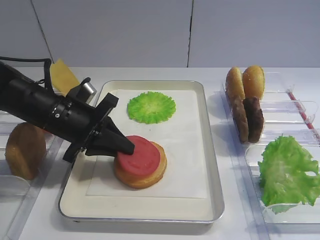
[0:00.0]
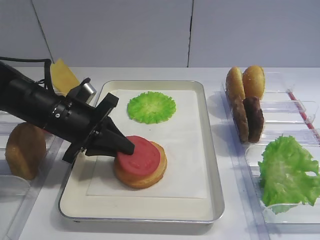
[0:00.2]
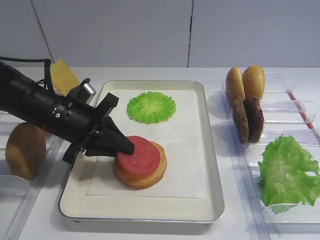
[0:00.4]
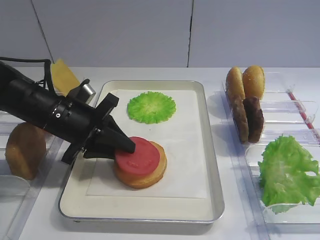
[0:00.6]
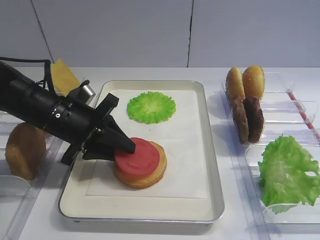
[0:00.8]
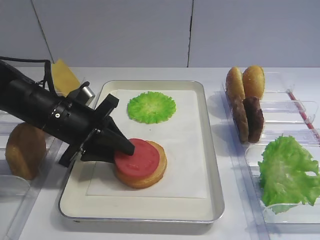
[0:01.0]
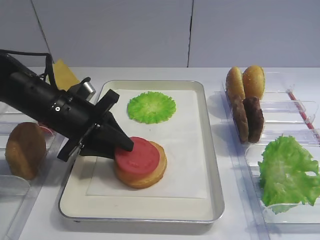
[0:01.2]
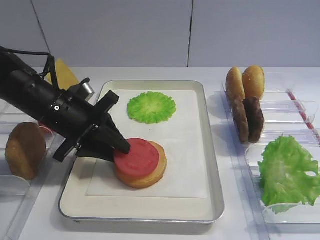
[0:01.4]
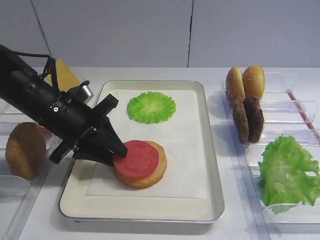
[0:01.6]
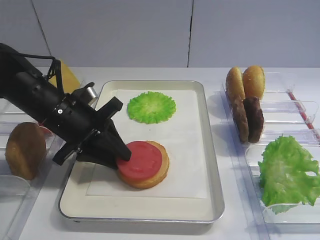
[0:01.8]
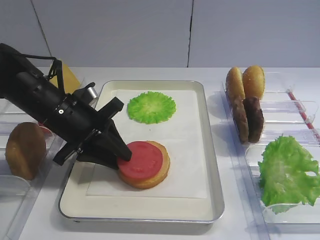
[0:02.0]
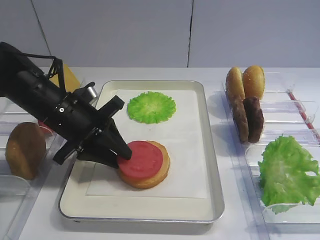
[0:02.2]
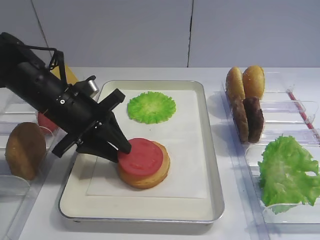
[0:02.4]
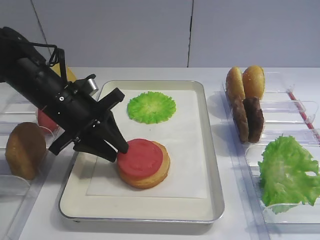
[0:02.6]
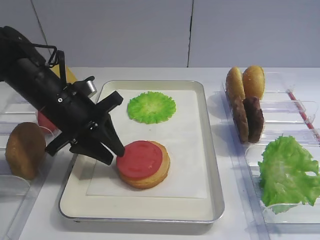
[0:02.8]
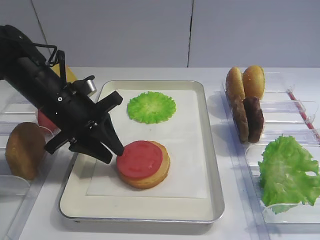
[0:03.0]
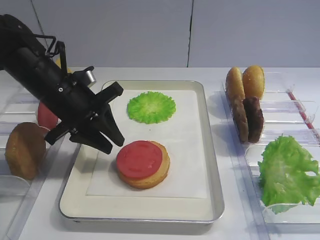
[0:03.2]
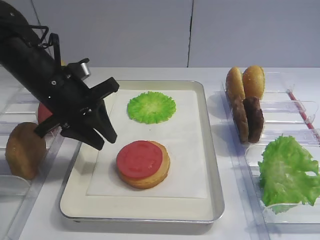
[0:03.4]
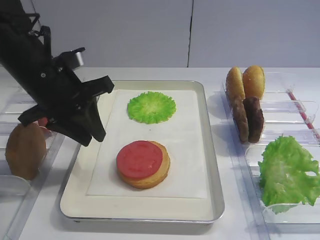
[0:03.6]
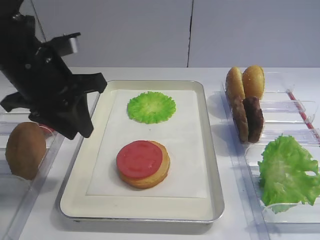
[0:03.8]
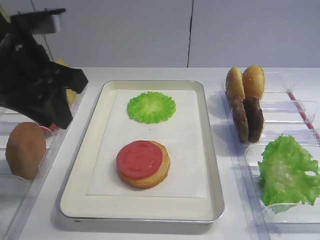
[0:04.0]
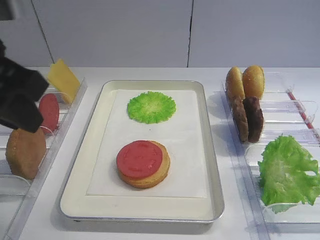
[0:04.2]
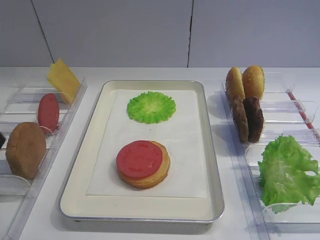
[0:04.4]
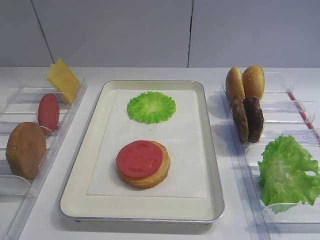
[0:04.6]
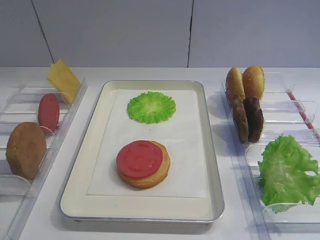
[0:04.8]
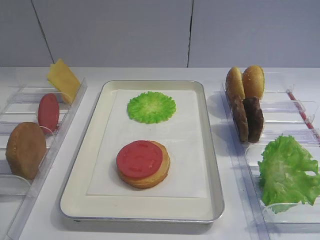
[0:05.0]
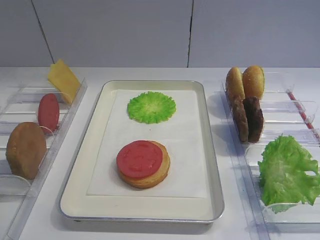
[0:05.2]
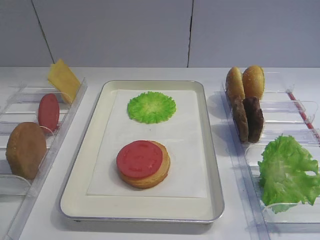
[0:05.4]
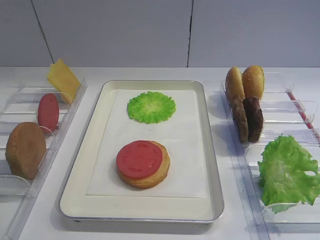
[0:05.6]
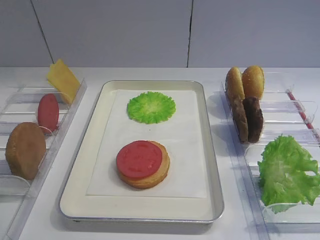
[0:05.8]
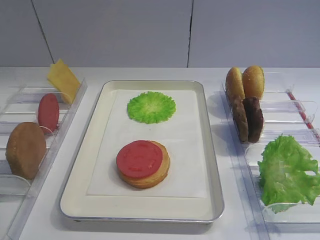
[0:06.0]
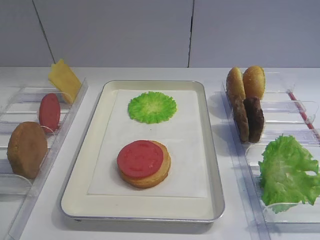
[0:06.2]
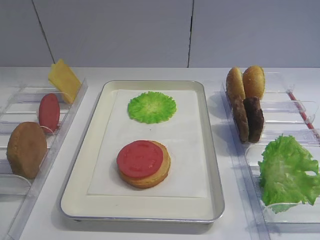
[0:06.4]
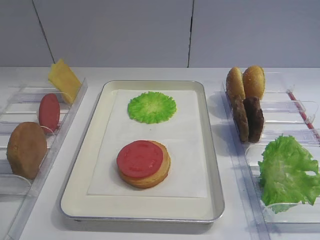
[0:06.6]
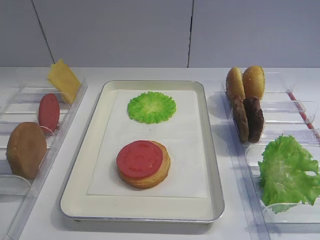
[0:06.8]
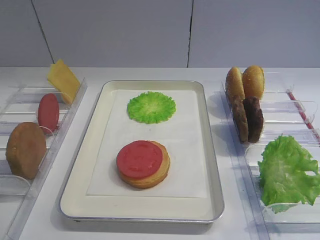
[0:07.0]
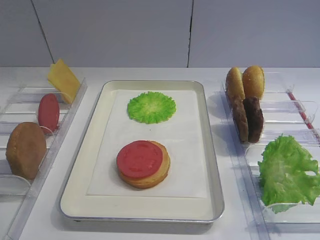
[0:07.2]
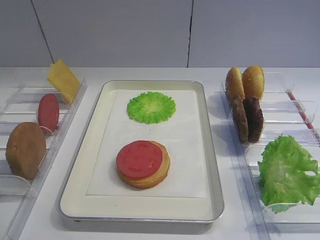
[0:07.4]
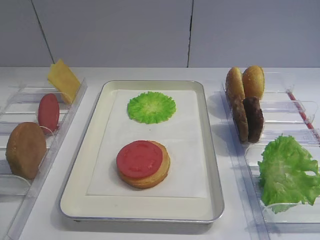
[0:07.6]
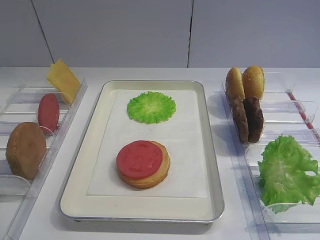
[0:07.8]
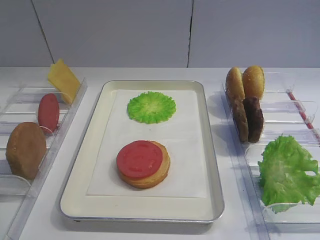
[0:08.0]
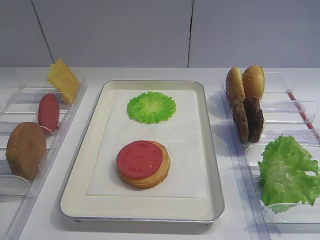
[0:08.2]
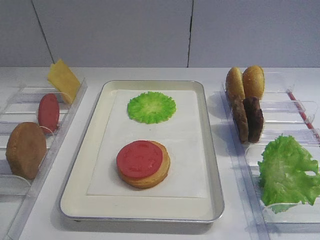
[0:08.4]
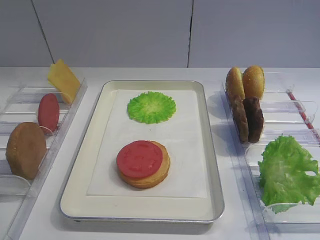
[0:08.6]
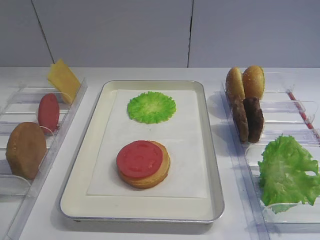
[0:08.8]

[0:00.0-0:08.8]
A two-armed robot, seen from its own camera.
Step, 0:00.0 to 0:02.8: Place the tomato slice on the bread slice with the left gripper.
0:00.0 to 0:01.4: The left gripper opens up.
0:01.4 to 0:03.0: The grippers stay close to where they were, moving slightly.
0:03.0 to 0:04.4: The left gripper moves backward and upward, about 25 cm.
0:07.4 to 0:08.8: Both grippers stay about where they are.

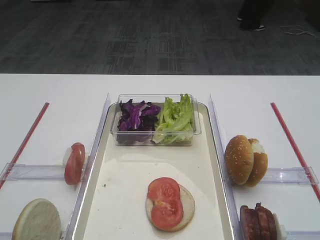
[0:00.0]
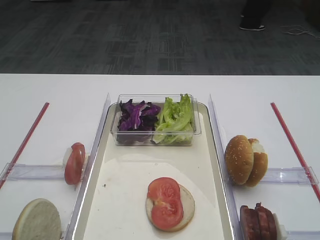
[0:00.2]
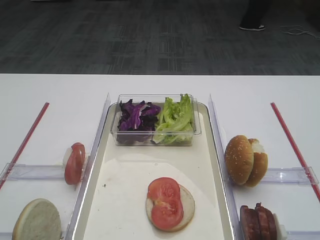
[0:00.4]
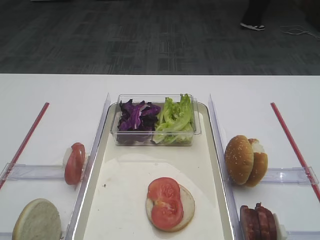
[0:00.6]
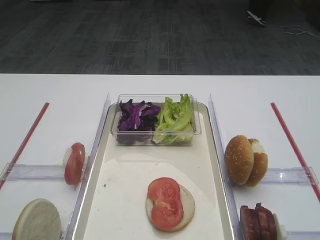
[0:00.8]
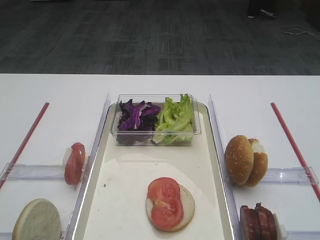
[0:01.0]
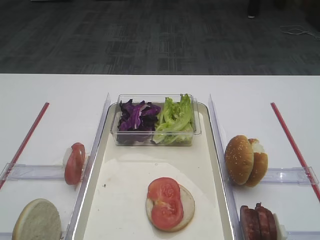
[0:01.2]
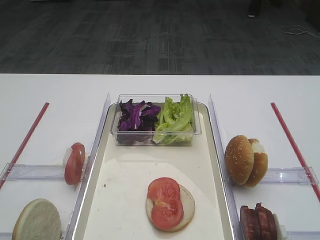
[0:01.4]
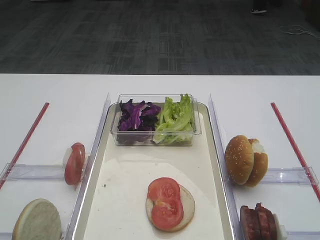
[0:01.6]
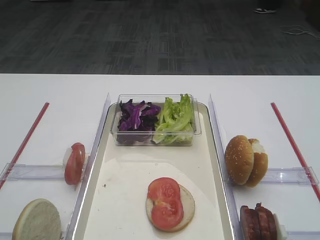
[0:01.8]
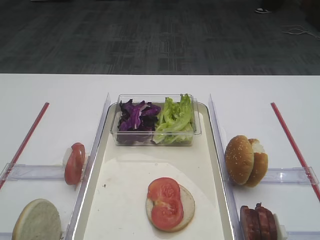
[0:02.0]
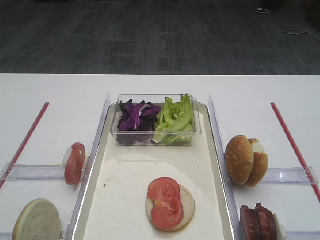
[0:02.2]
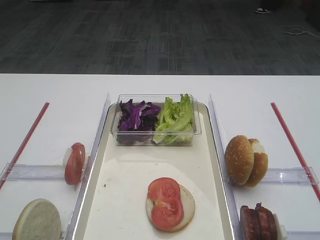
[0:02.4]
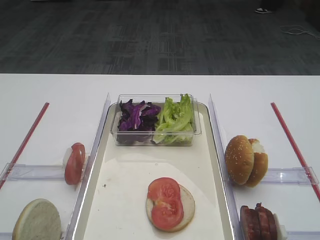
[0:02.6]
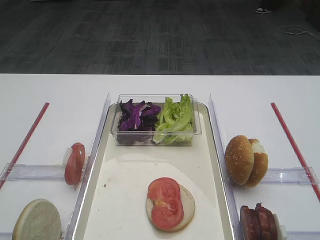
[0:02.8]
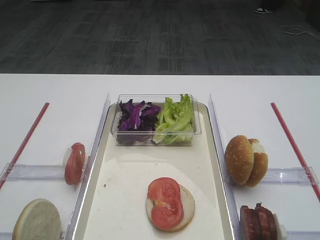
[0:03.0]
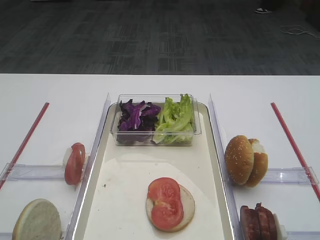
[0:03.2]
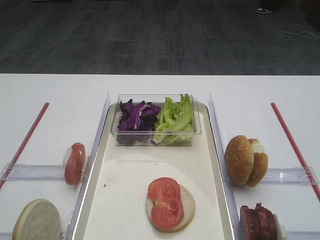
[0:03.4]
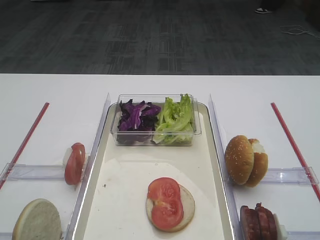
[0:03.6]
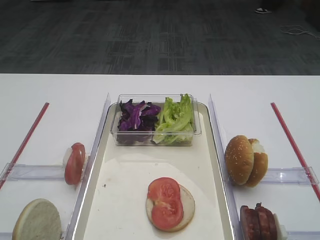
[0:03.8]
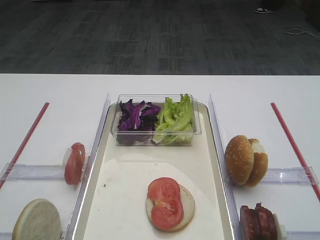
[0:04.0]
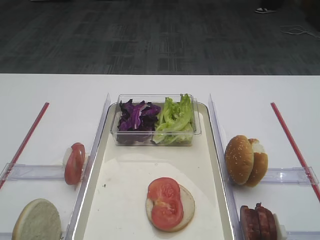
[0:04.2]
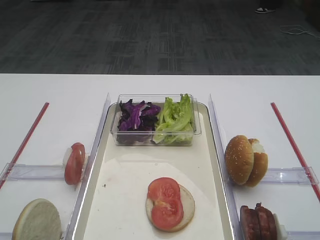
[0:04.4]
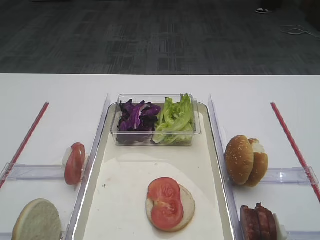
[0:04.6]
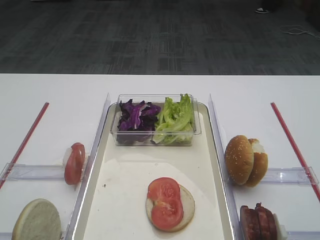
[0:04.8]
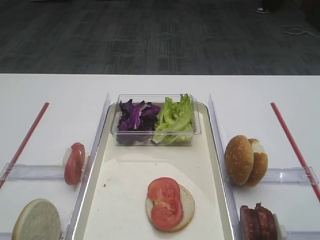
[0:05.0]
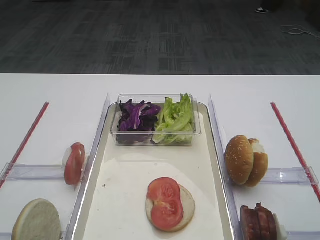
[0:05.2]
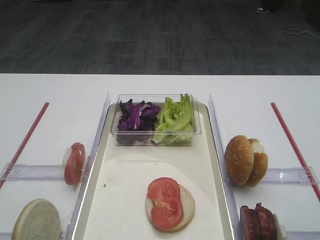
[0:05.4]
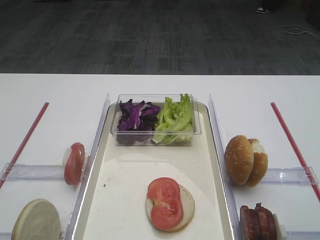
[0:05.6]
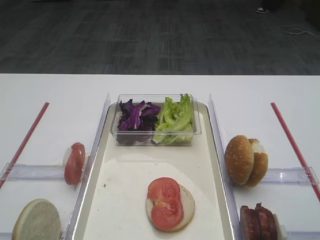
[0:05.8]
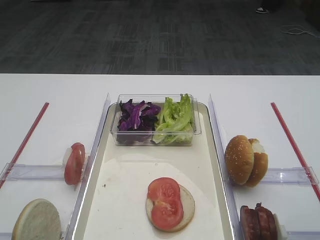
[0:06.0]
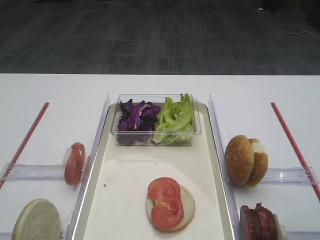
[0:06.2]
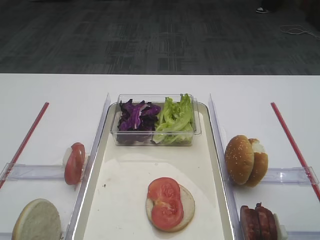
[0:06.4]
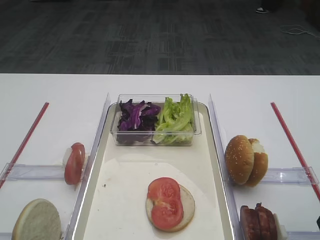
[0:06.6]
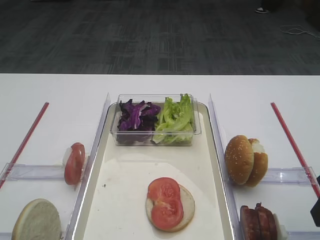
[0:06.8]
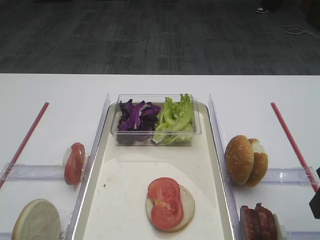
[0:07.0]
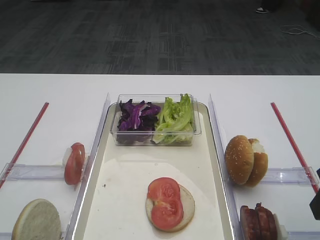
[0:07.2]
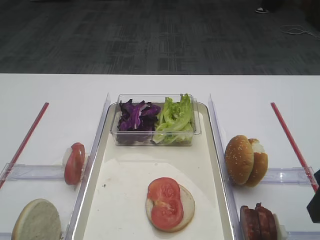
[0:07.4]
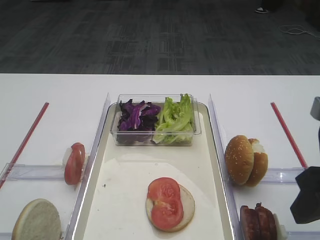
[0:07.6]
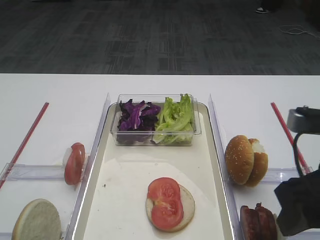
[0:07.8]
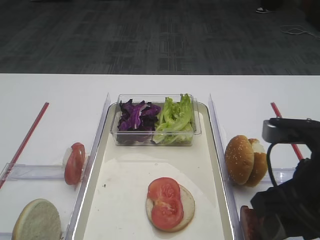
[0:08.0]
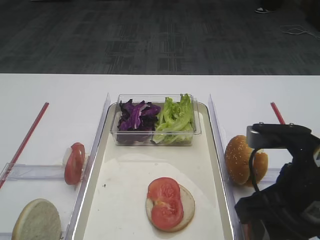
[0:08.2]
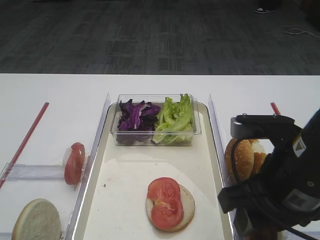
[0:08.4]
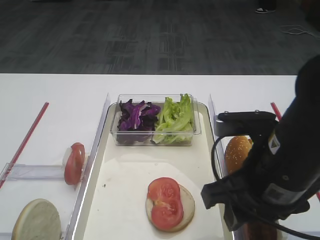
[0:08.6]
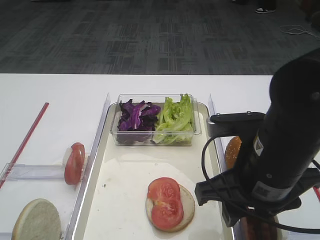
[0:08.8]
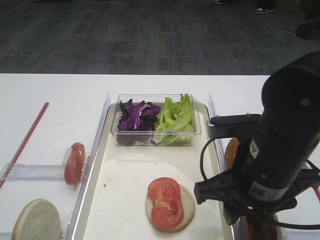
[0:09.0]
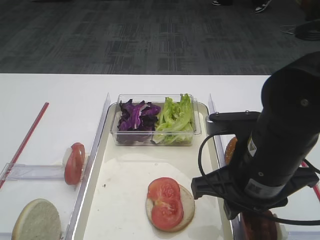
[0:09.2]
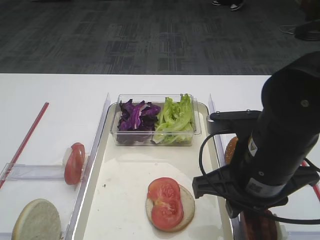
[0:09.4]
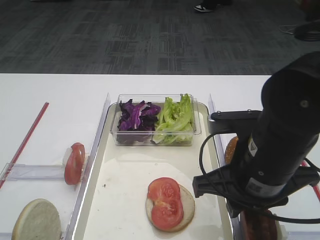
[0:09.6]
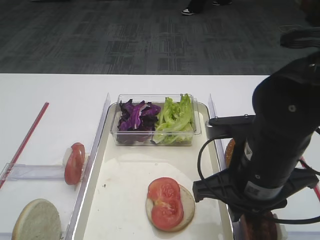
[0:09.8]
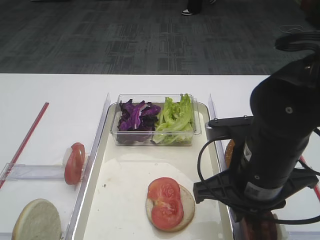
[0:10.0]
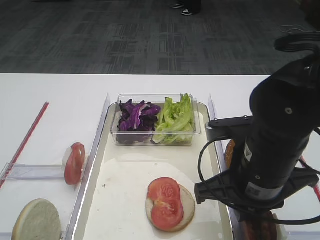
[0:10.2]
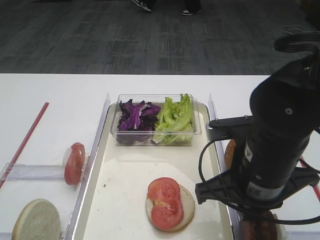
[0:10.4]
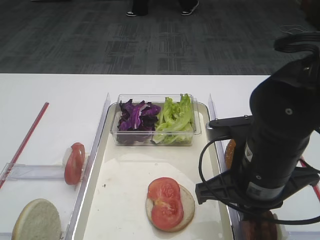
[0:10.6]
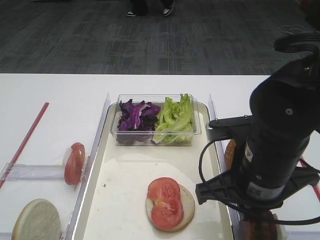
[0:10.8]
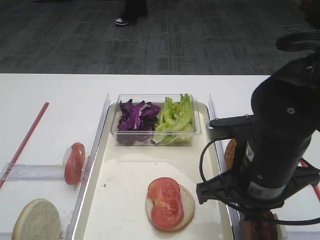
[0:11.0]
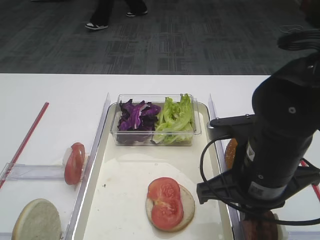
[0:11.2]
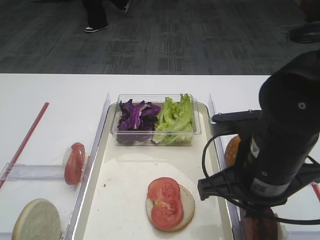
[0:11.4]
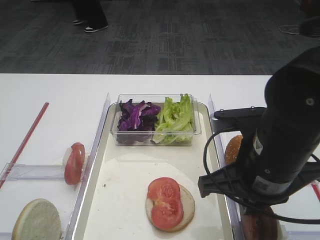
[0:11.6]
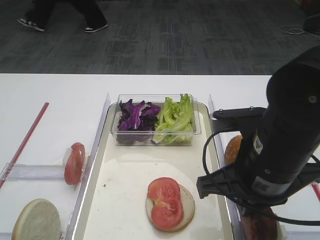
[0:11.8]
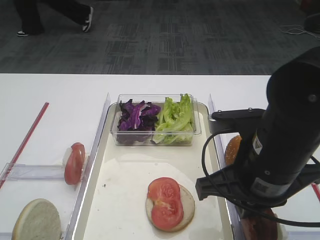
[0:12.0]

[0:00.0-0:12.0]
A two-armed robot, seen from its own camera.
0:06.0 to 0:07.6: The grippers stay close to where they were, moving slightly.
0:07.6 to 0:09.0: The right gripper moves to the left, about 10 cm.
0:09.0 to 0:10.4: The right gripper closes its fingers.
0:10.4 to 0:12.0: The grippers move only a little.

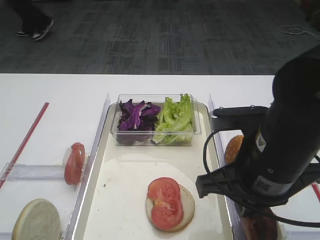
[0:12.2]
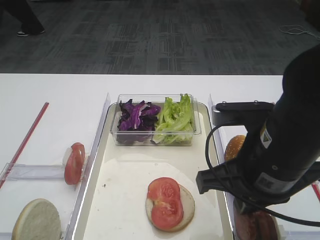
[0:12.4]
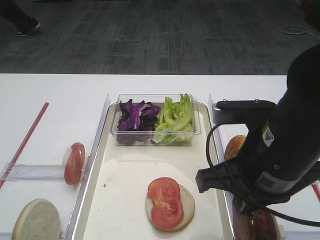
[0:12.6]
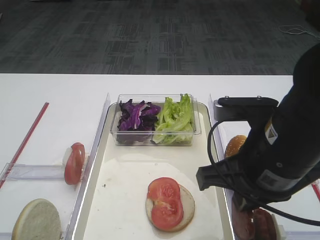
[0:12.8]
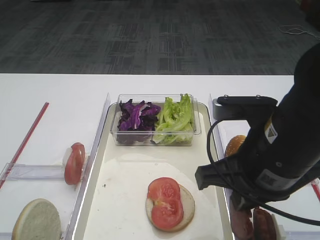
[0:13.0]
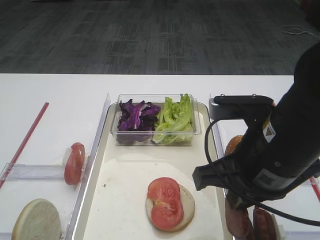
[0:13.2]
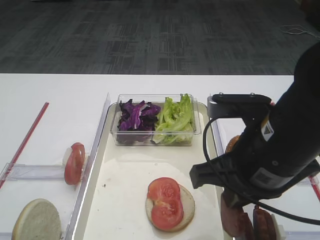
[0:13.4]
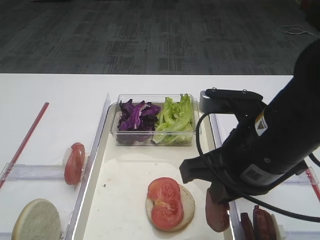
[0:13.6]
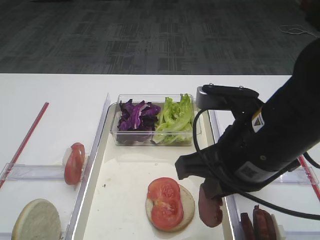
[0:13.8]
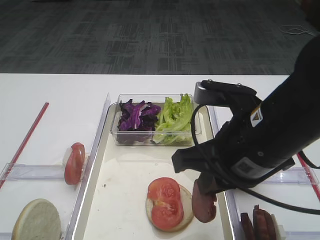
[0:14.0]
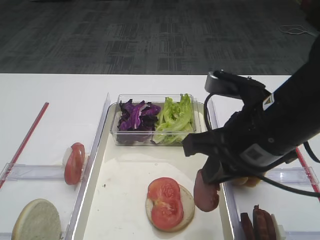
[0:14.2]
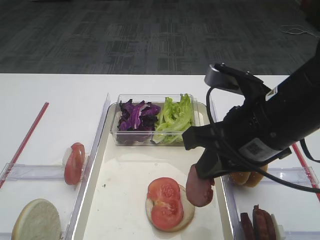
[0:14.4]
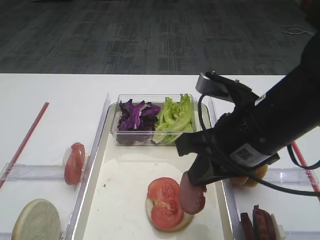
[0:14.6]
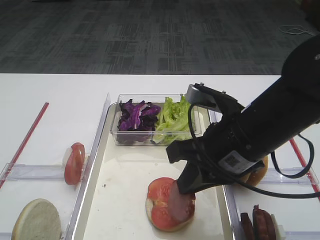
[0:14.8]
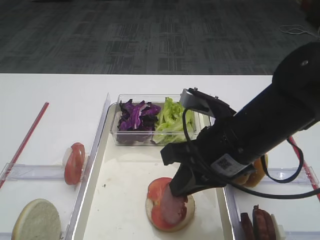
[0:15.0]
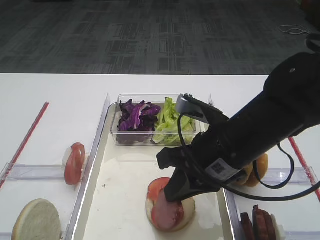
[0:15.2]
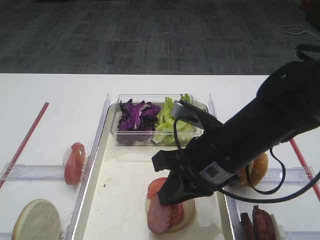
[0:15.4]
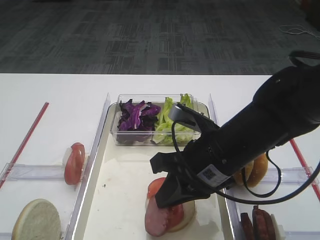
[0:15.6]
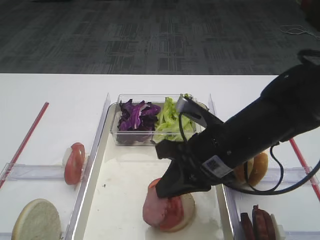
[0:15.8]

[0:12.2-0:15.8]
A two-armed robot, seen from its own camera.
0:12.2 to 0:14.0: The grippers make only small movements.
0:14.0 to 0:15.8: The right gripper is displaced downward and forward by approximately 10 cm.
